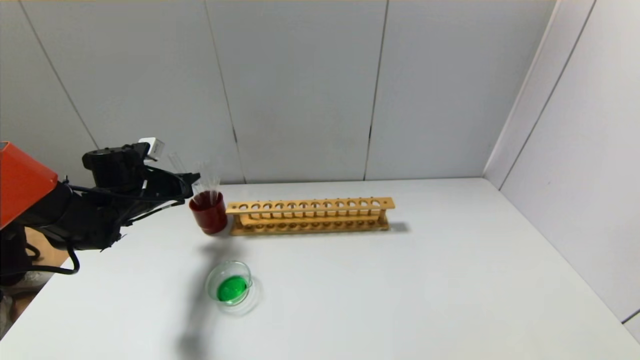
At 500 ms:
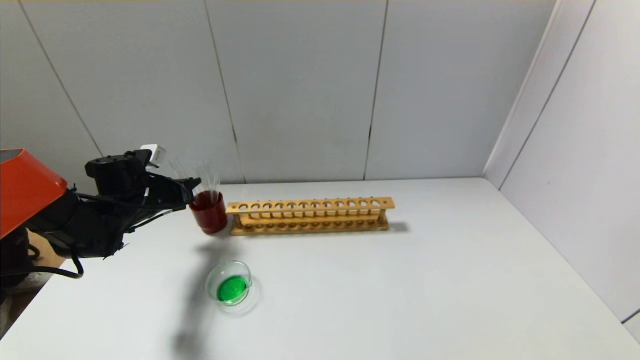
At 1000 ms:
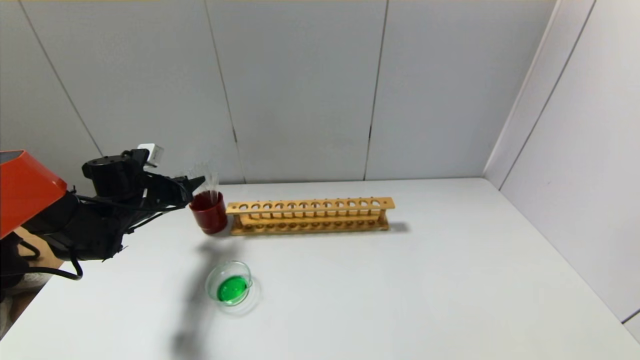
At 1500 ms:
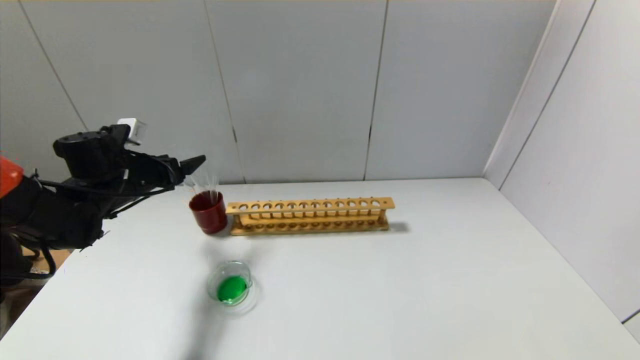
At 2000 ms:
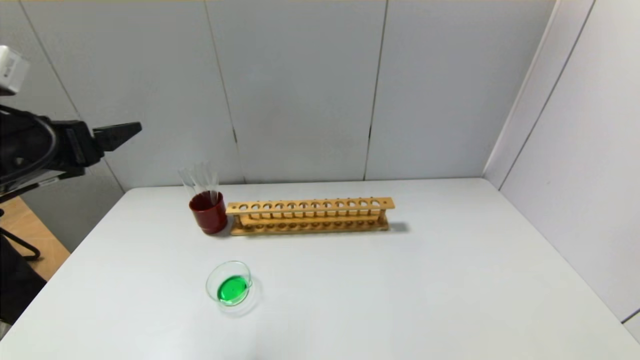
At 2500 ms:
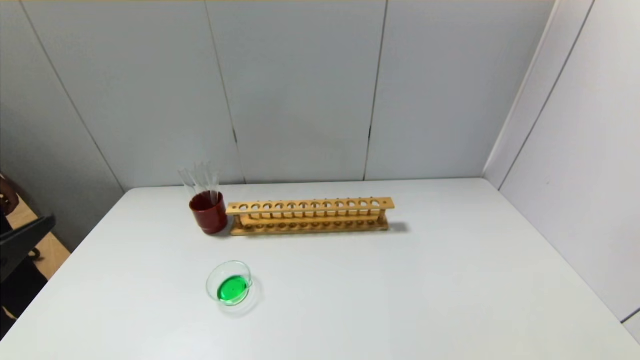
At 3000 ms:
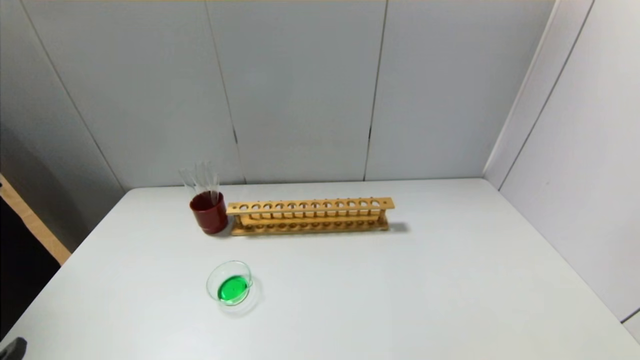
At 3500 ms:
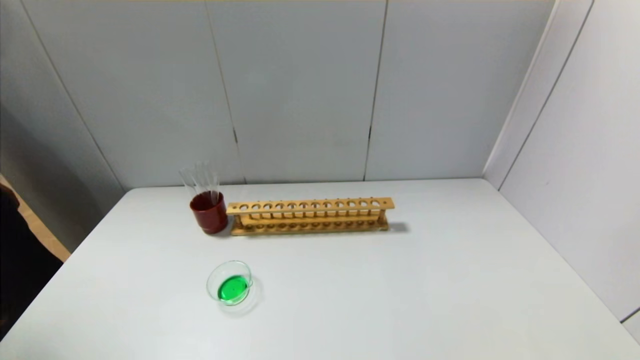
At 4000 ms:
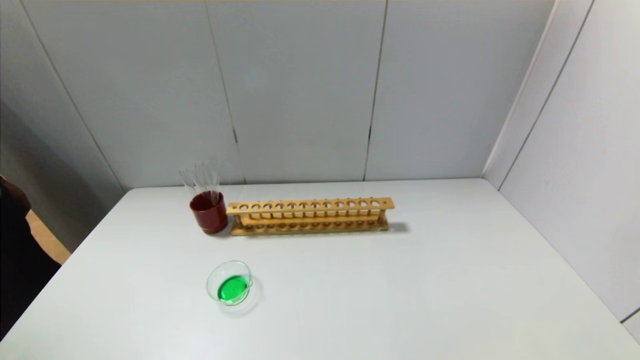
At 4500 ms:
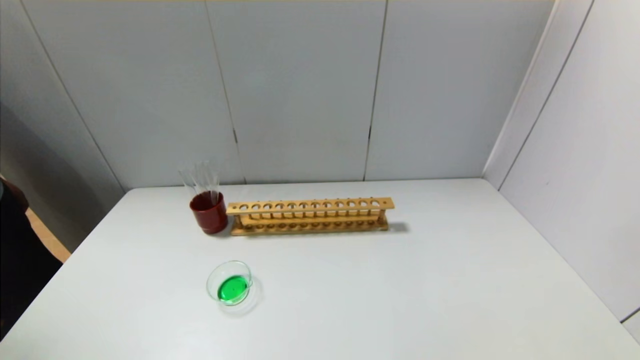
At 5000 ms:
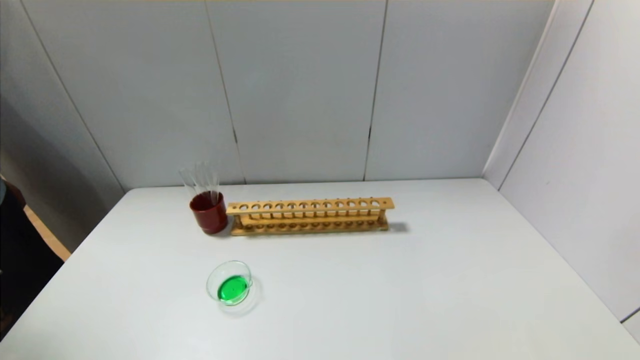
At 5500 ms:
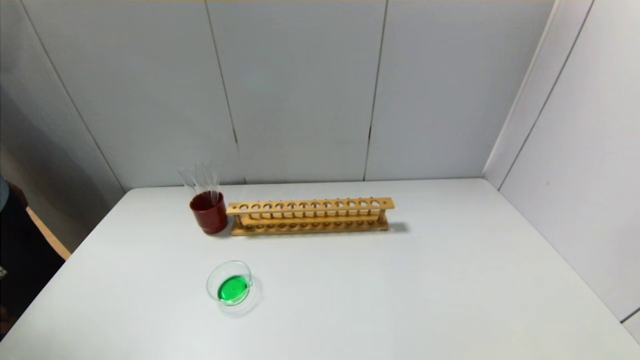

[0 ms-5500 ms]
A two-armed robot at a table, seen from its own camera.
0 ms to 2000 ms: The left gripper goes about 25 cm backward and upward, and opens.
2000 ms to 3500 ms: The left gripper is displaced backward and downward by about 30 cm.

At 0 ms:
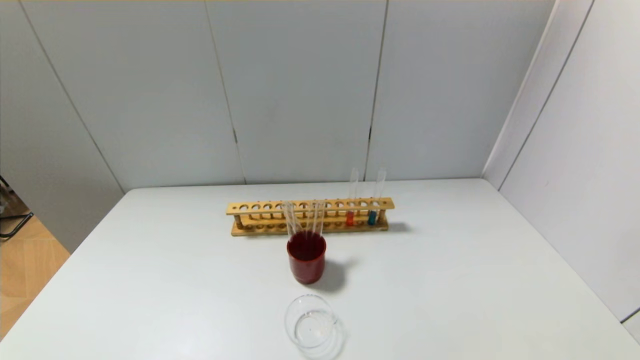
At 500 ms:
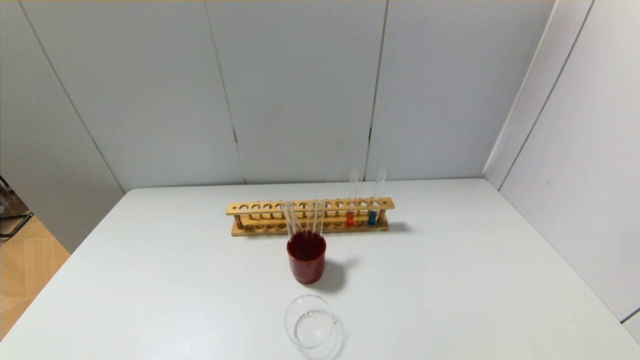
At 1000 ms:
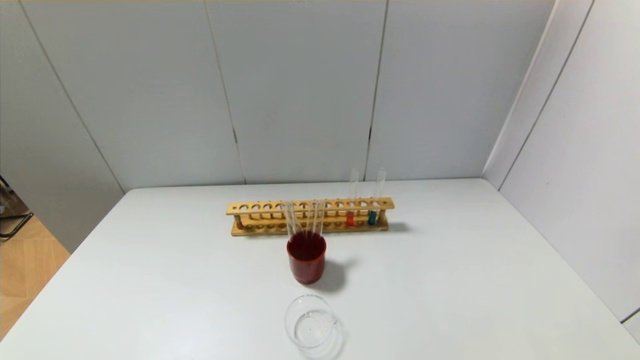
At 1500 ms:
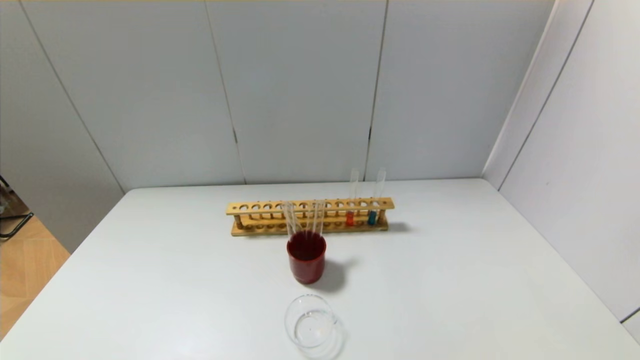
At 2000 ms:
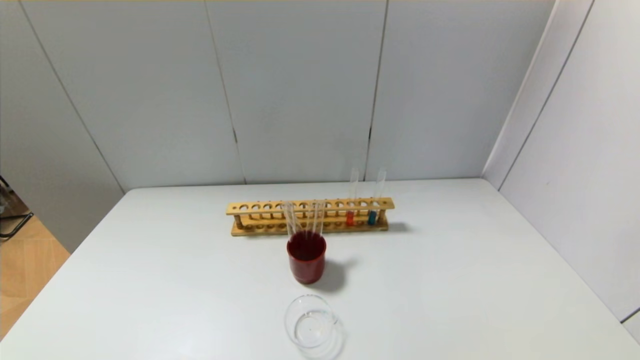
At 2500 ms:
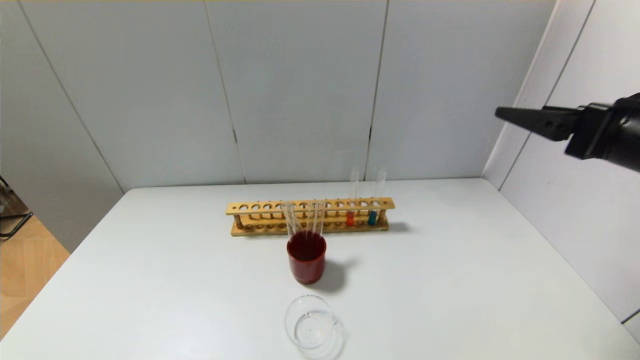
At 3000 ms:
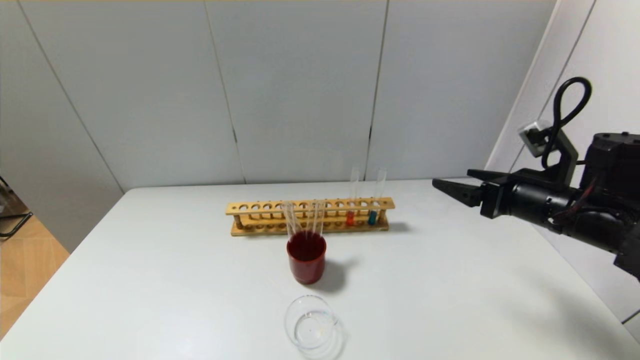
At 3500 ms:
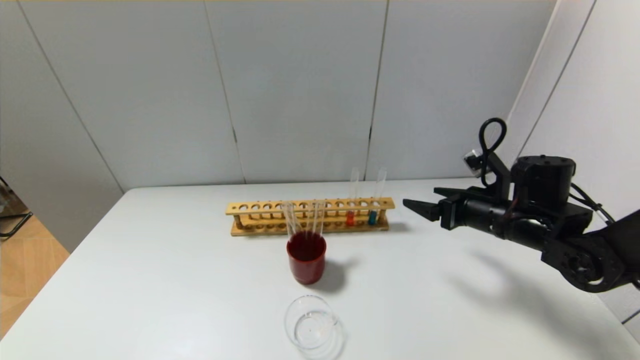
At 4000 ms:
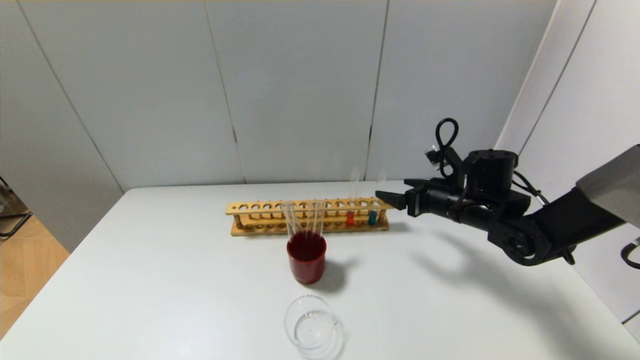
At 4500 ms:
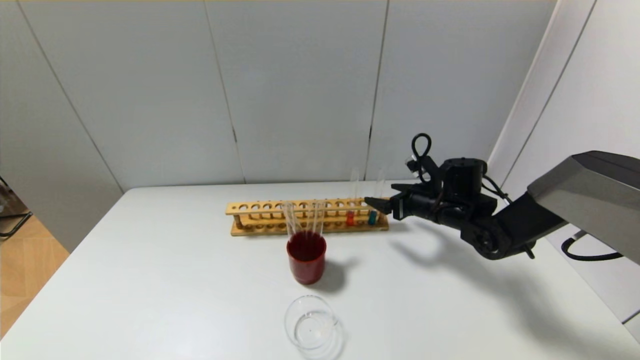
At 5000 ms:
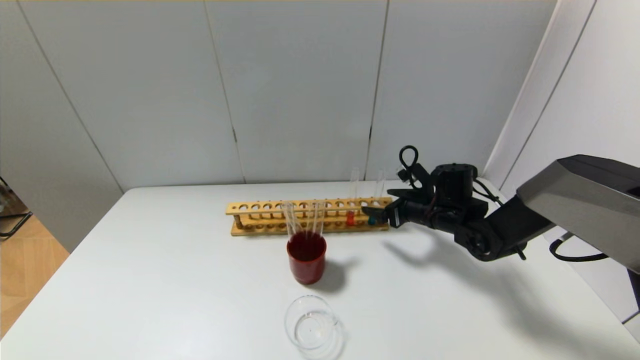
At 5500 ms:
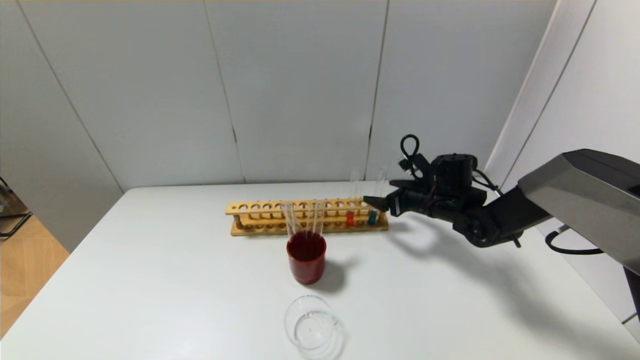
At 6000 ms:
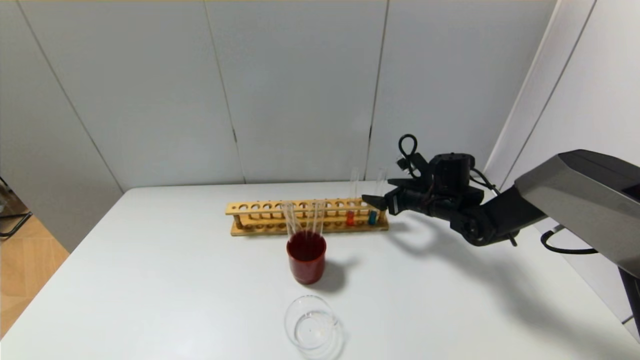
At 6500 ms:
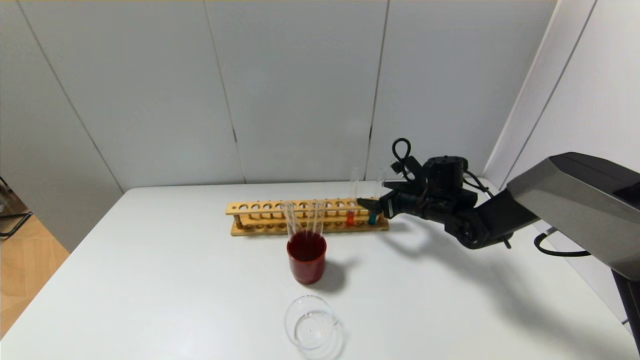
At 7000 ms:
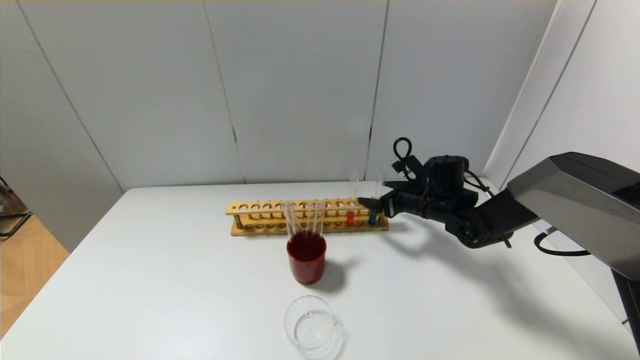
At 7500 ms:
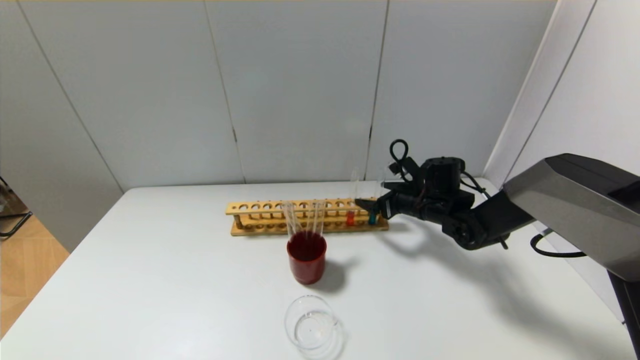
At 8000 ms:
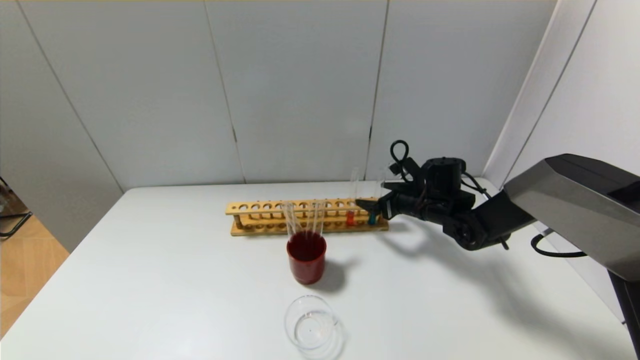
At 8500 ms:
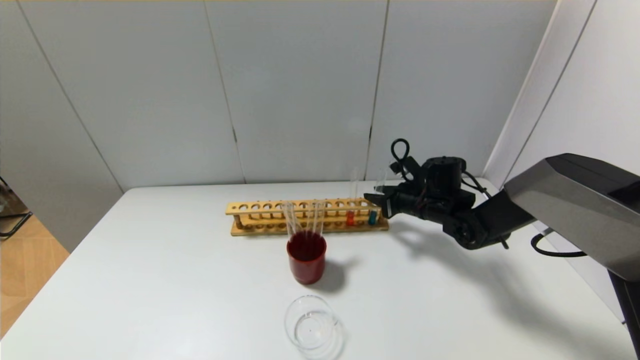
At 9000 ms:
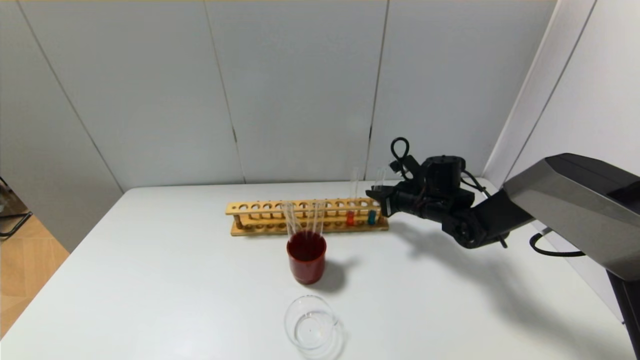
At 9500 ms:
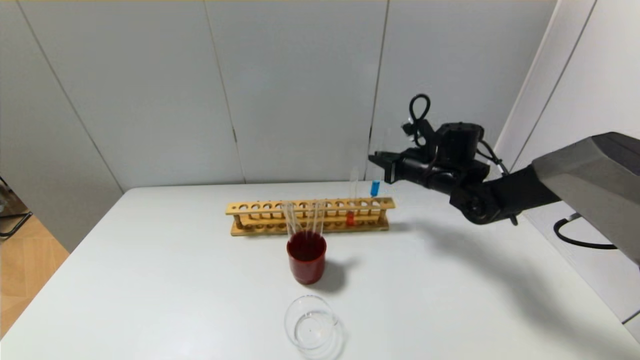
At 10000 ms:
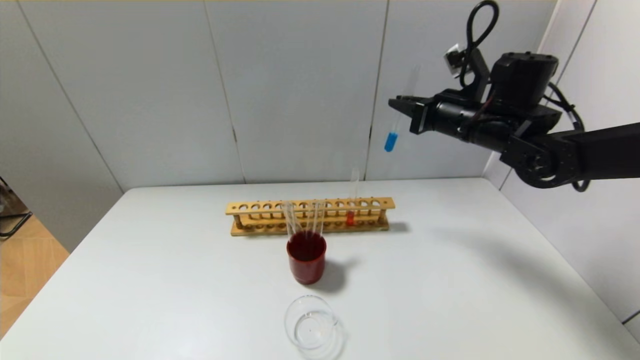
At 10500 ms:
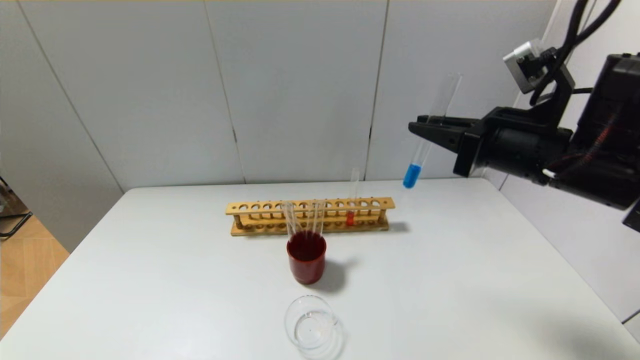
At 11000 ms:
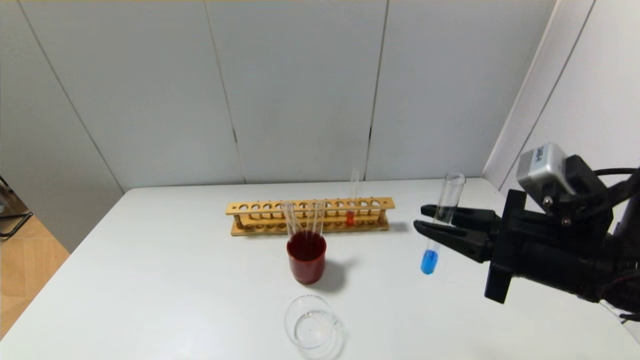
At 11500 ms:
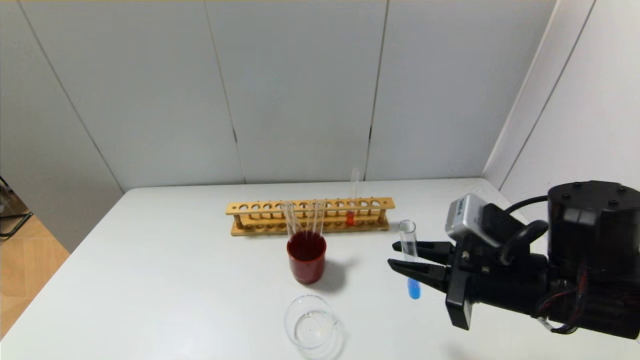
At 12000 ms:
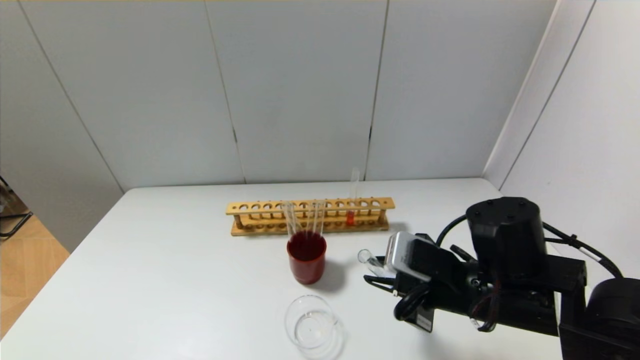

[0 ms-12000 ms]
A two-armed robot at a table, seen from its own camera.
Step, 0 ms to 8500 ms: Grasp the blue reagent with the right gripper.
2000 ms to 4000 ms: The right gripper moves forward and downward, approximately 40 cm.
4000 ms to 6000 ms: The right gripper moves forward, about 5 cm.
6000 ms to 8000 ms: Both grippers stay about where they are.
8000 ms to 10000 ms: The right gripper is displaced upward by approximately 20 cm, and closes its fingers.
10000 ms to 12000 ms: The right gripper shifts roughly 20 cm backward and downward.

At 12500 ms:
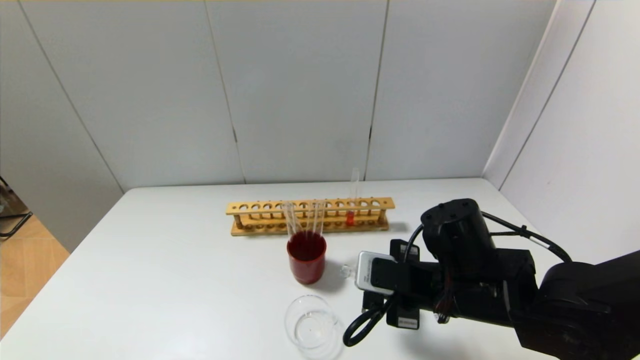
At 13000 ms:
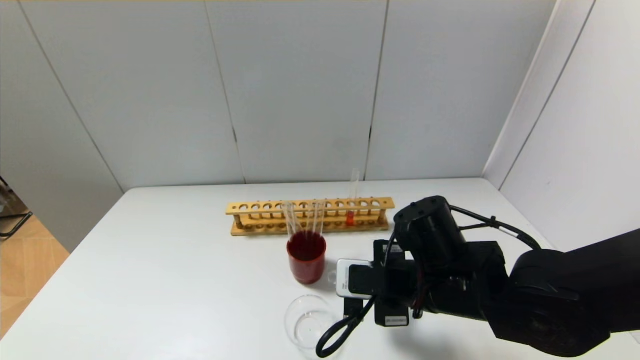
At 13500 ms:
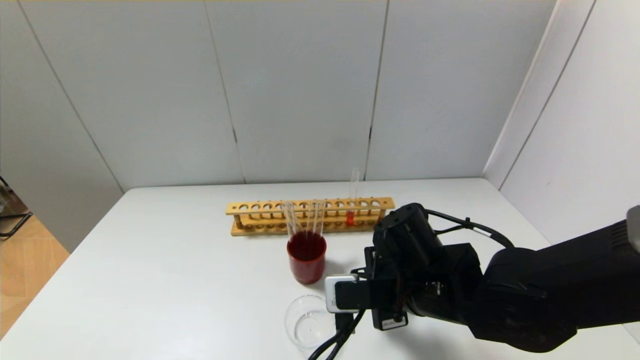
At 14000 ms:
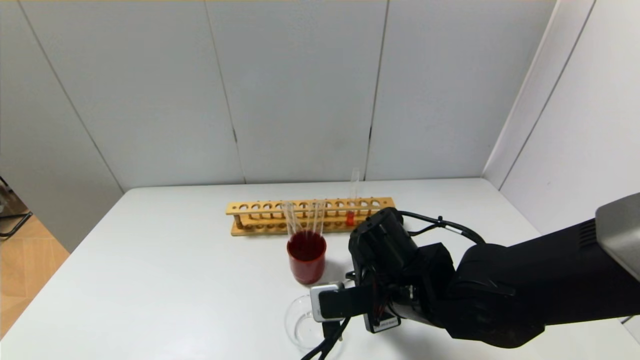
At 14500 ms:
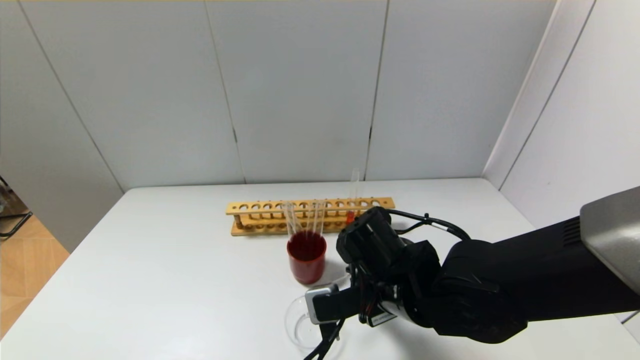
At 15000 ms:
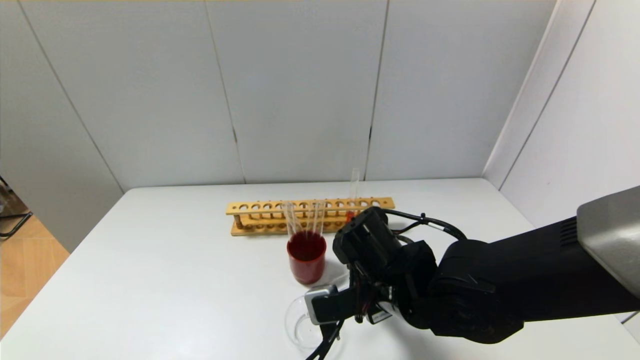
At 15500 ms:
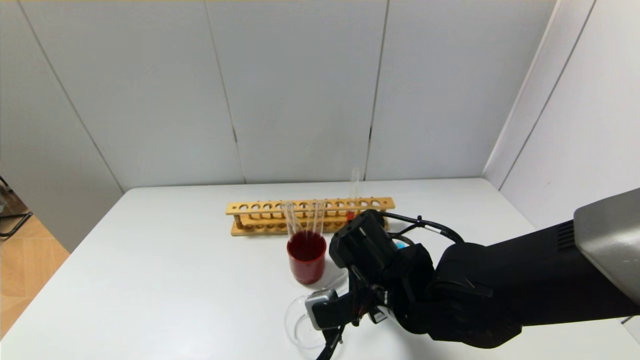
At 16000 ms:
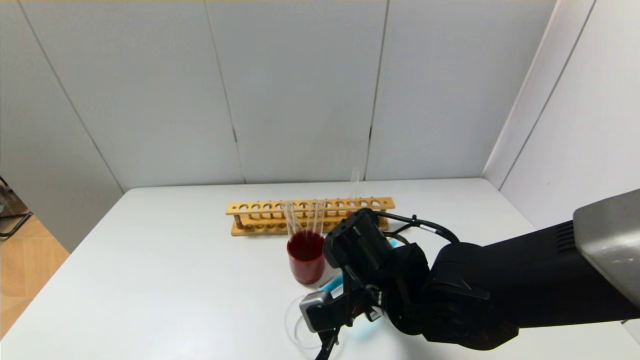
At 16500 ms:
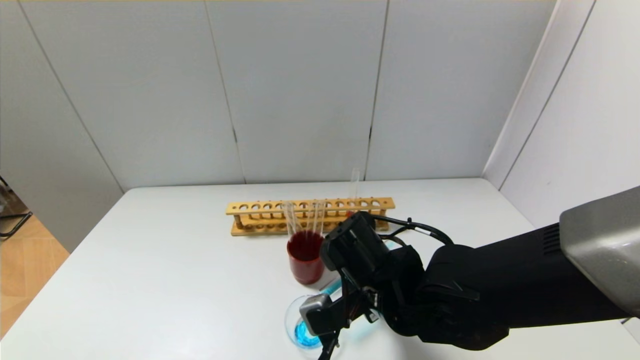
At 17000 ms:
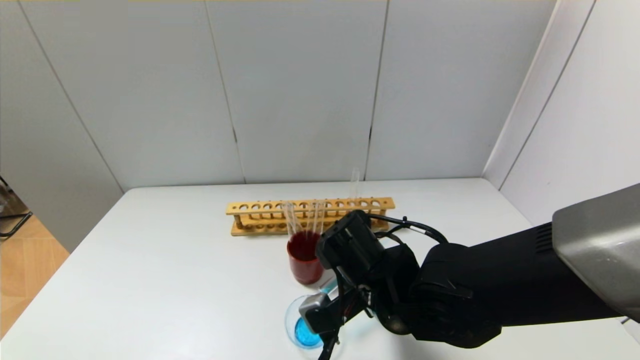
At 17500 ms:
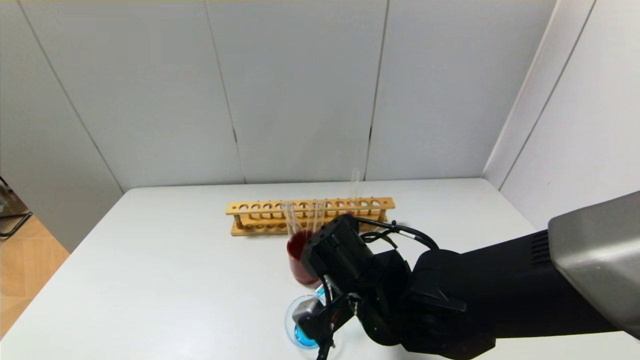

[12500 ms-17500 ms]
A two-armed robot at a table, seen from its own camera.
12500 ms to 15000 ms: The right gripper shifts approximately 5 cm to the left.
